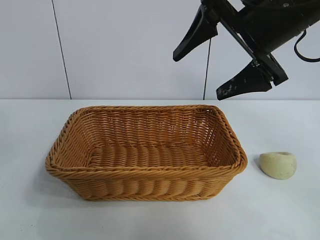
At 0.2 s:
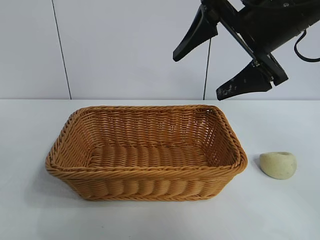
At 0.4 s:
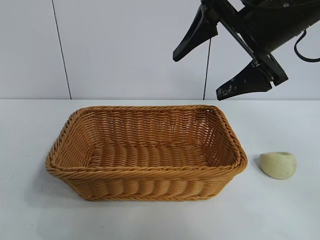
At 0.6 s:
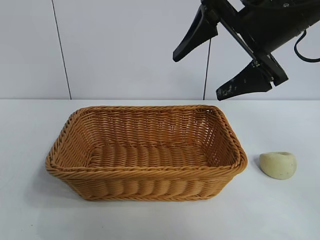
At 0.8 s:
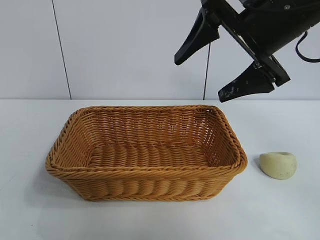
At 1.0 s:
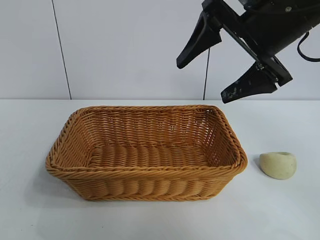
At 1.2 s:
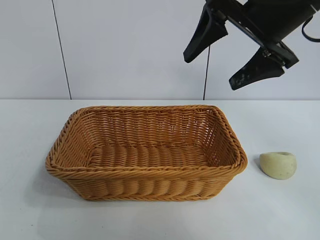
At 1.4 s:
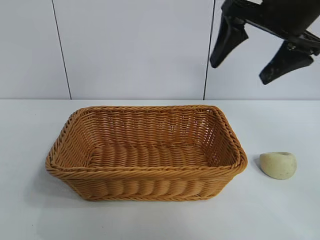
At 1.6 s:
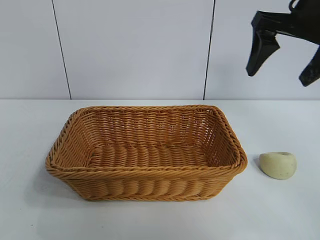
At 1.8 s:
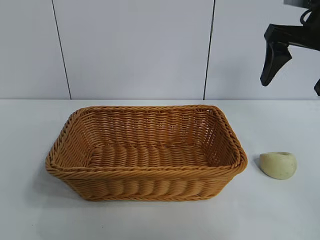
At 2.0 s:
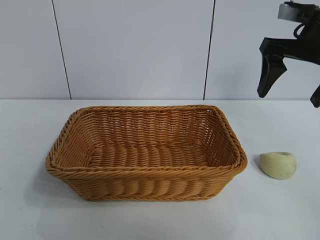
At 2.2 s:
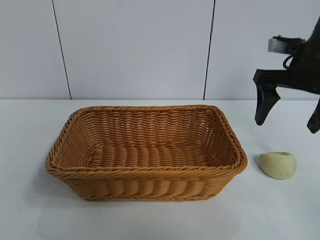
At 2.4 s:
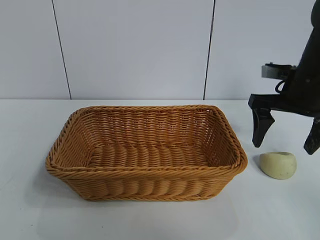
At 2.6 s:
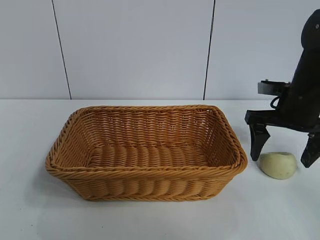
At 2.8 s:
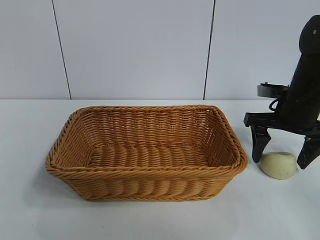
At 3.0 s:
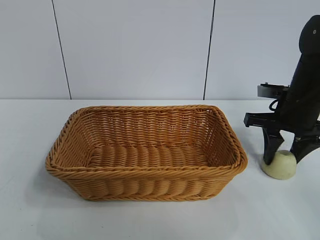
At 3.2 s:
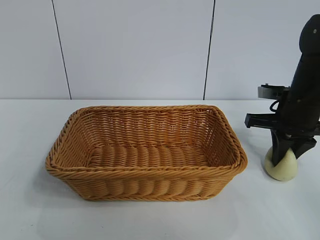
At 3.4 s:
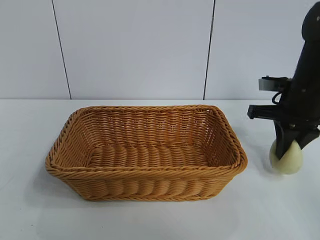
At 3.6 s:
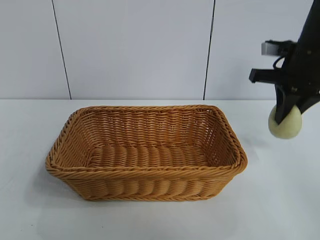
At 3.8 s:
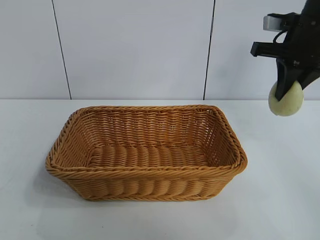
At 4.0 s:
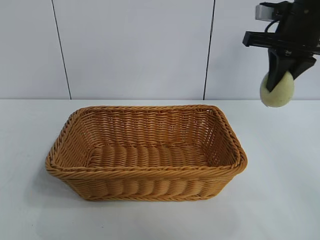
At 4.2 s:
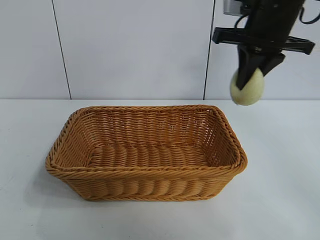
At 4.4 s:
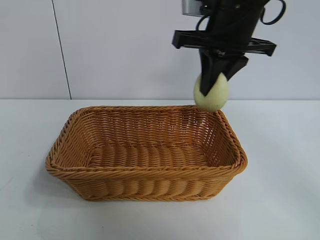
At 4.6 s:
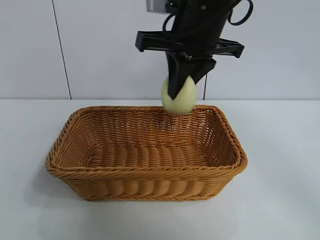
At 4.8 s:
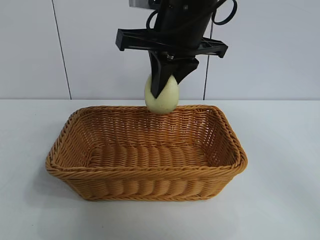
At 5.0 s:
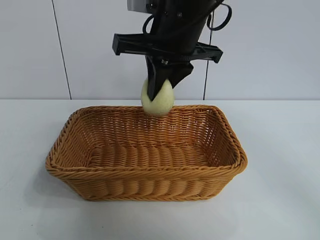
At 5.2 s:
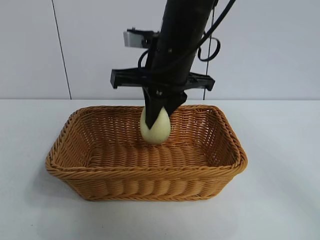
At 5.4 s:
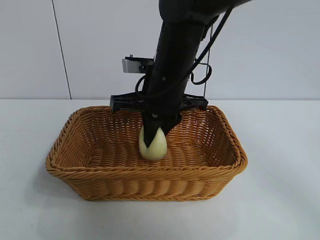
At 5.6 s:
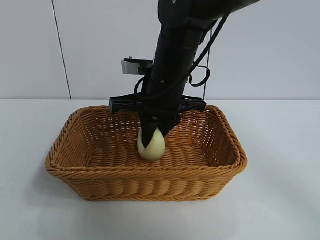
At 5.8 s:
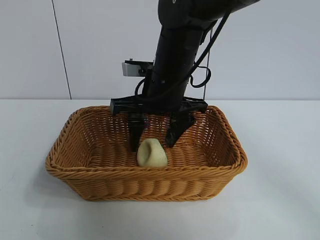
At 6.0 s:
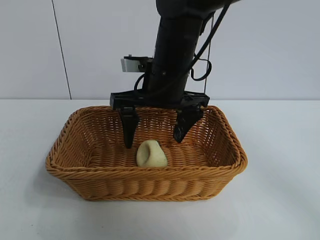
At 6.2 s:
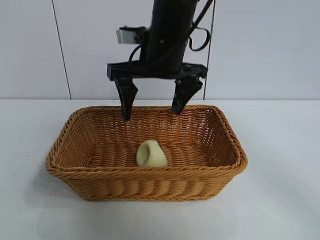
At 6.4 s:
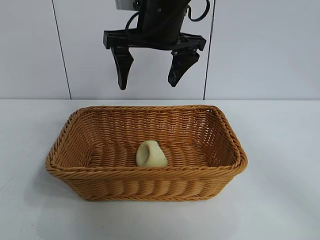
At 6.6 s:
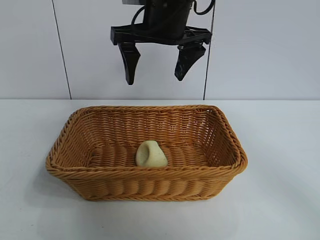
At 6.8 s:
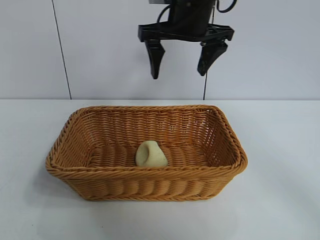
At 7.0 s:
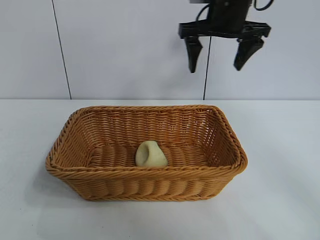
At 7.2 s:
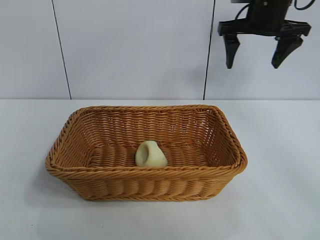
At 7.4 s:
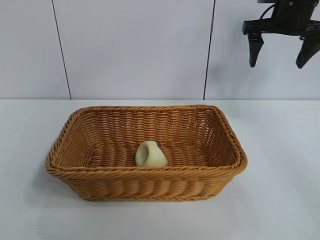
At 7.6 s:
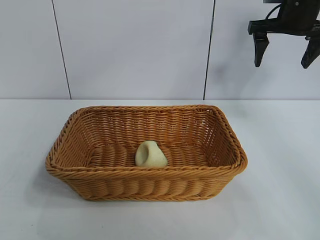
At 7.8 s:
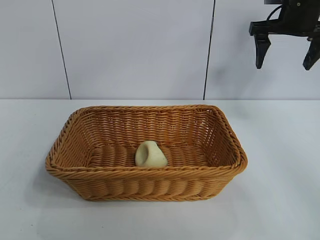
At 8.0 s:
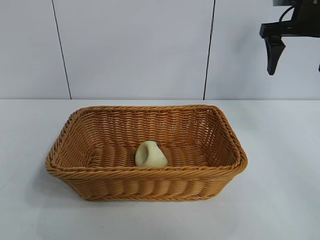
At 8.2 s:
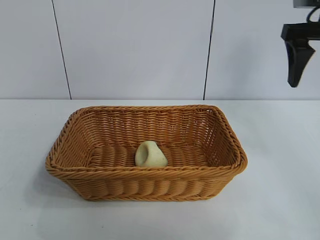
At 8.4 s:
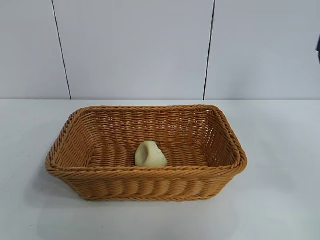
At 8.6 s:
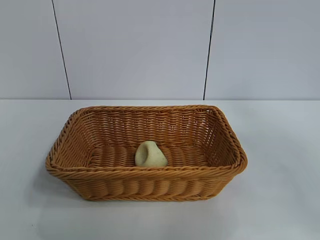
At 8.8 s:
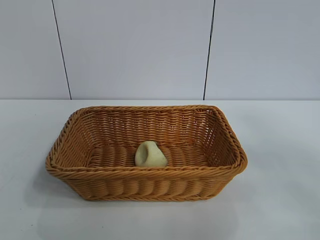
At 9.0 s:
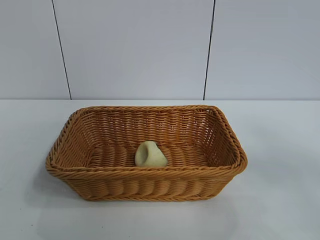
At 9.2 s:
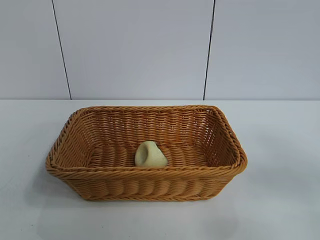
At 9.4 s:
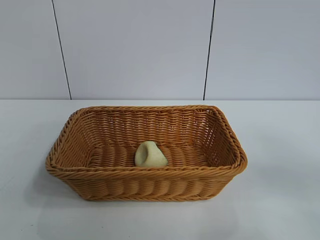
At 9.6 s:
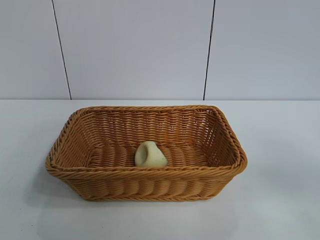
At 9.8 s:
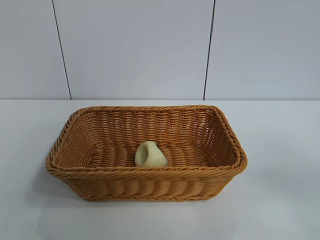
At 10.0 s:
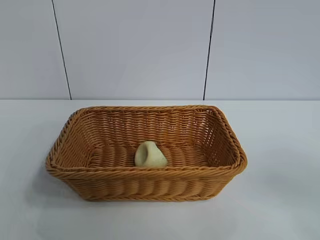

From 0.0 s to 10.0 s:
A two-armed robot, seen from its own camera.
Task of the whole recording: pick up the egg yolk pastry and put it into the basket.
Step, from 0.0 s to 3.0 s: Grasp egg yolk pastry with right gripper.
Step, from 3.4 s to 5.8 s: Place the egg yolk pastry in the basket with right gripper.
